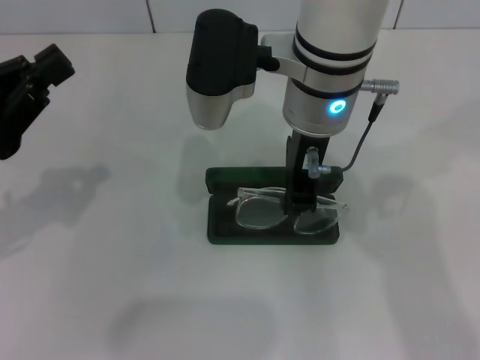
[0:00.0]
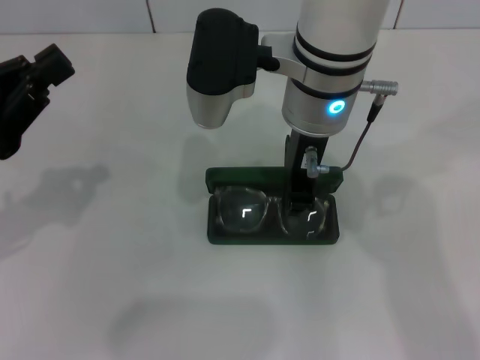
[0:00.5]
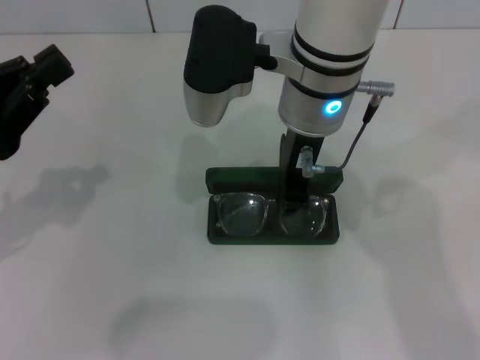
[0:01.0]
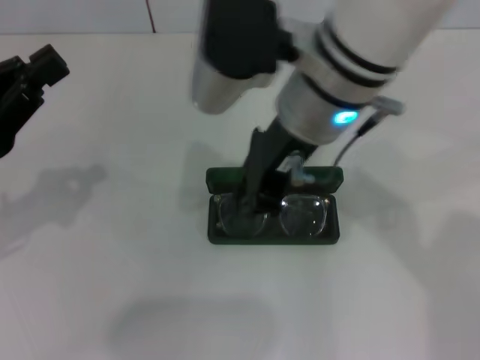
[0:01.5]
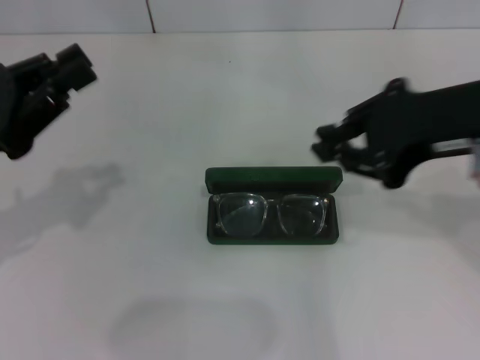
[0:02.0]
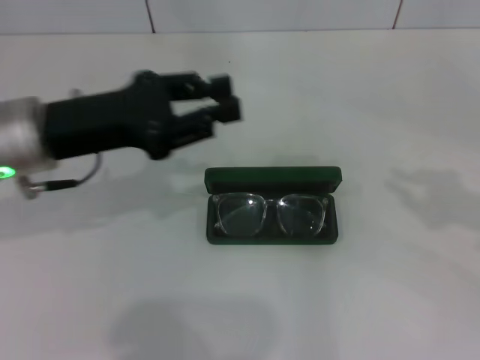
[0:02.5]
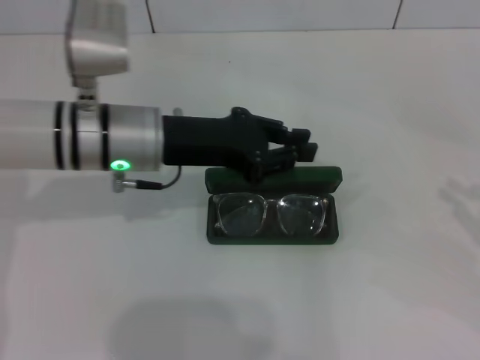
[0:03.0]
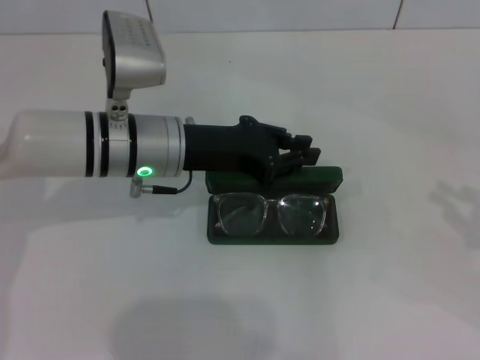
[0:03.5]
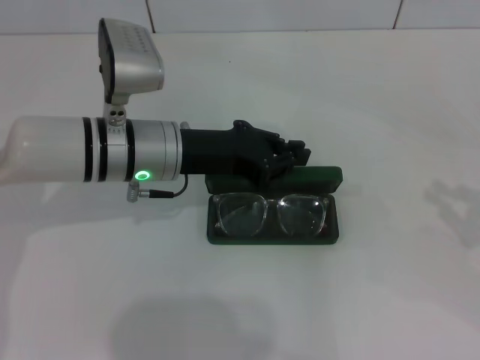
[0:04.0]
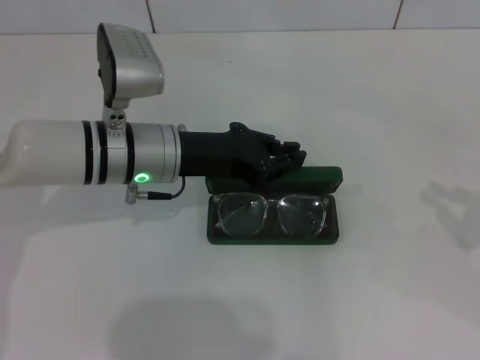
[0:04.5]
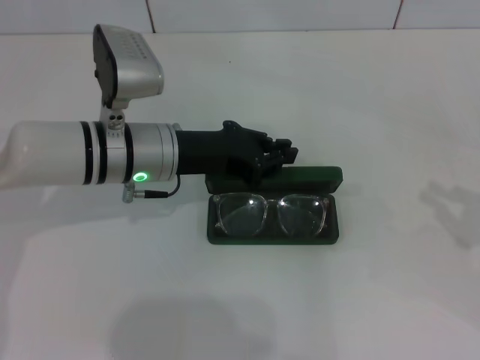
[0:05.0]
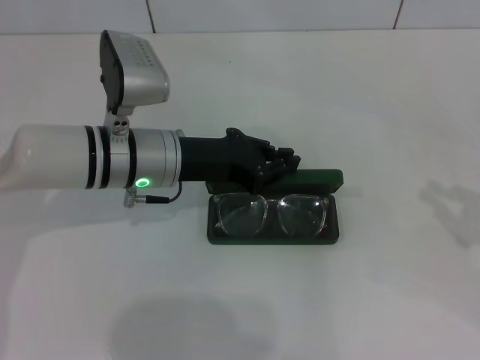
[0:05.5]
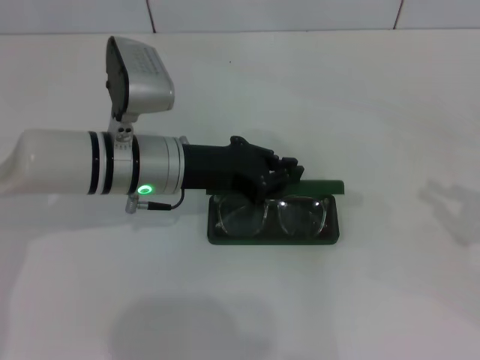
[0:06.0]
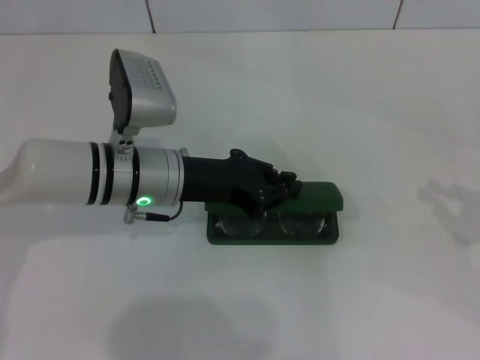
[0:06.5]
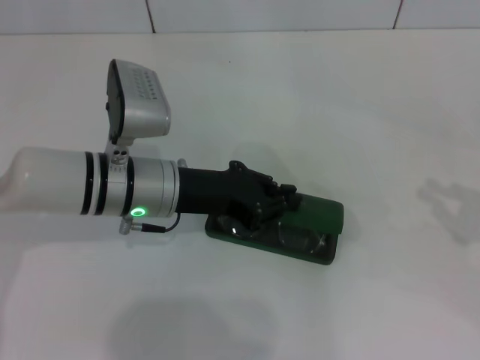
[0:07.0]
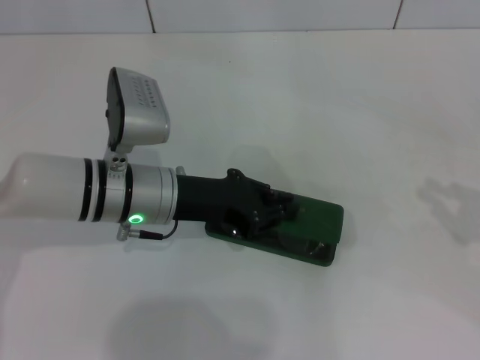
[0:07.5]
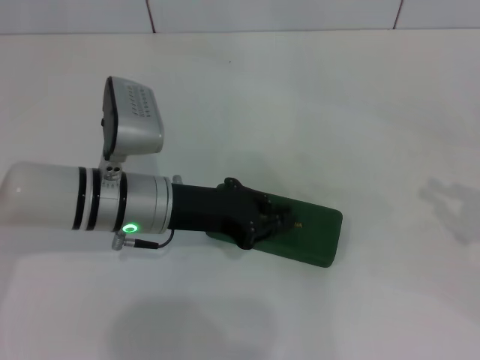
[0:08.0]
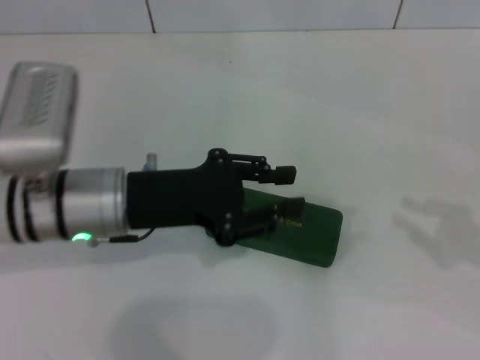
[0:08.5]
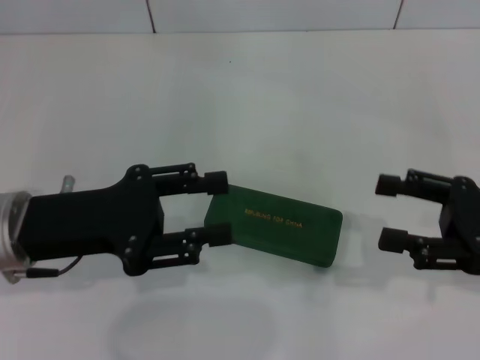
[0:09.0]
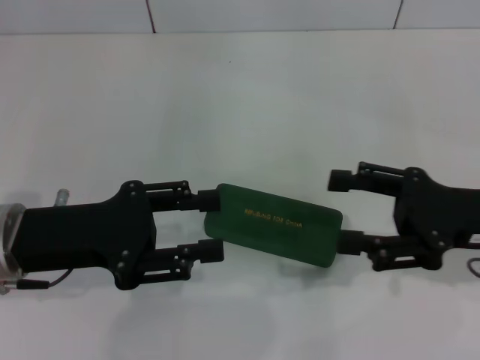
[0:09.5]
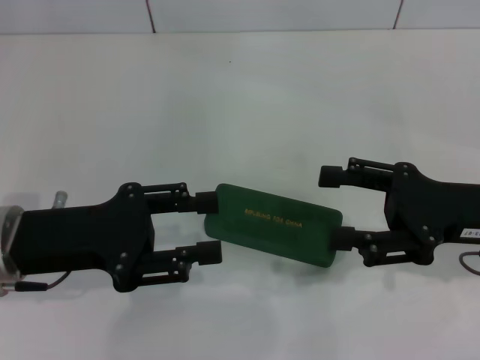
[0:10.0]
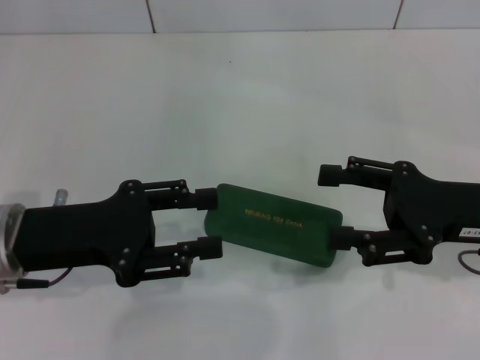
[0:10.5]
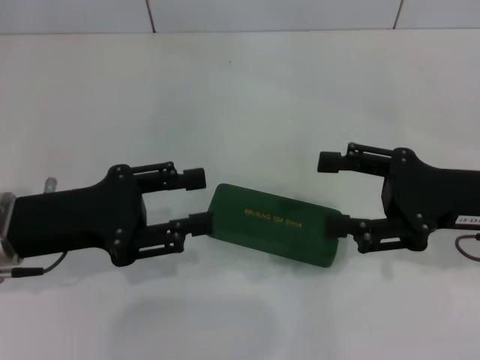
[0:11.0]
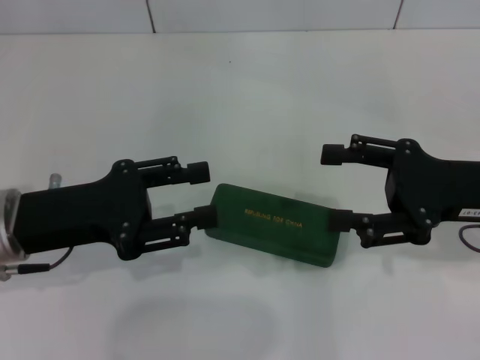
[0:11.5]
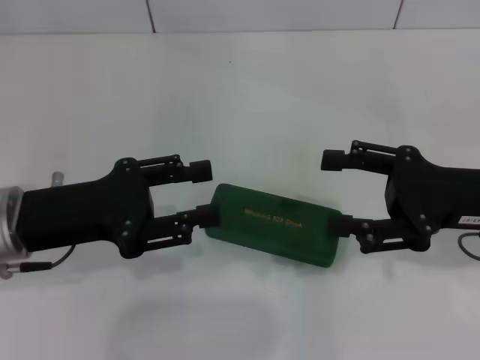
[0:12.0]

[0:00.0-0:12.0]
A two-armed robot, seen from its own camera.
Step, 0:02.0 to 0:08.0: Close the glasses case with your left hand.
0:00.0 to 0:02.0: The right gripper moves to the right and backward, some 20 cm.
0:02.0 to 0:04.0: The left gripper heads to the right and forward, covering about 20 cm; the right gripper heads to the right and downward, covering roughly 25 cm.
0:04.0 to 0:08.0: The grippers stay close to where they were, moving slightly.
0:08.0 to 0:10.0: The left gripper heads to the left and backward, covering some 10 cm, and opens its fingers. Meanwhile the right gripper heads to the left, covering about 15 cm, and opens its fingers.
0:10.0 to 0:12.0: The grippers move only a little.

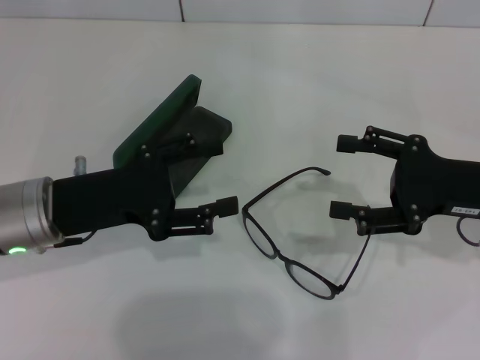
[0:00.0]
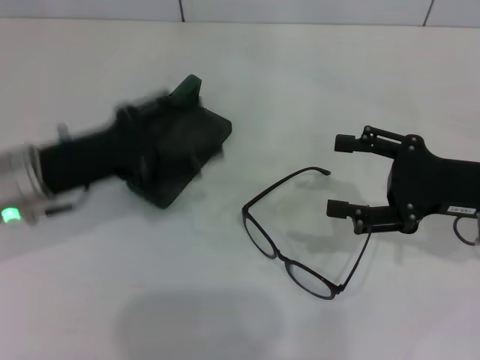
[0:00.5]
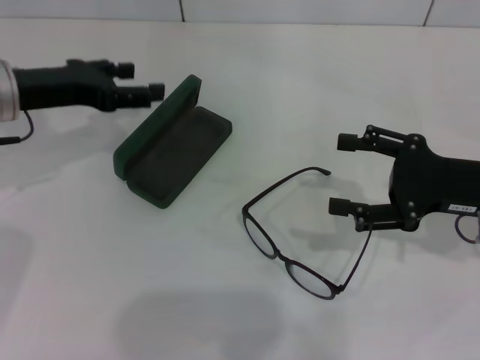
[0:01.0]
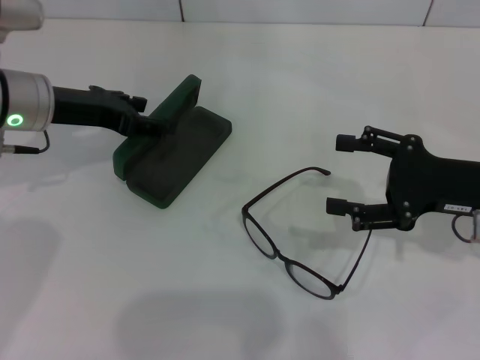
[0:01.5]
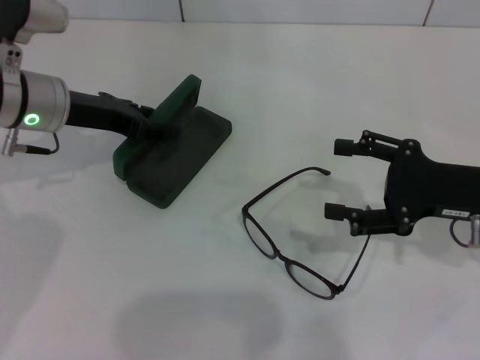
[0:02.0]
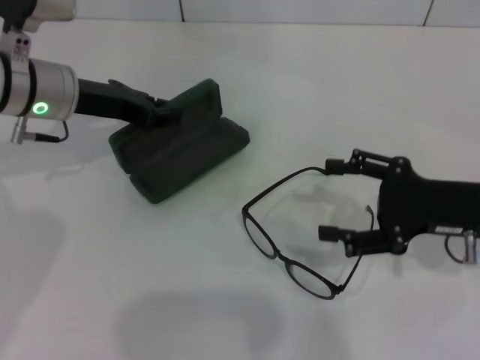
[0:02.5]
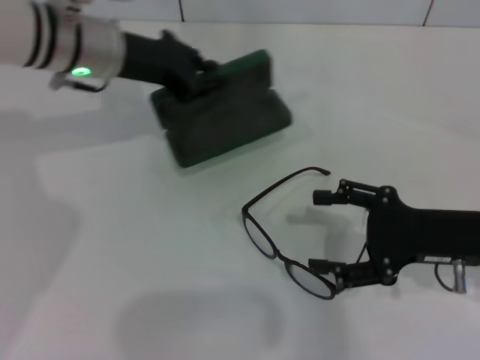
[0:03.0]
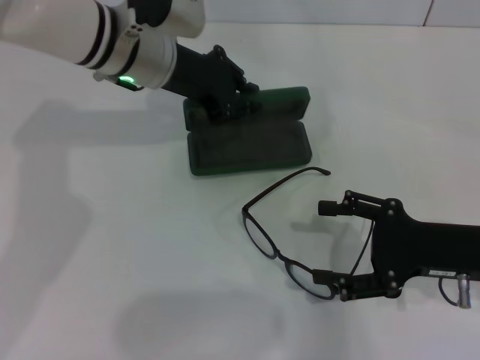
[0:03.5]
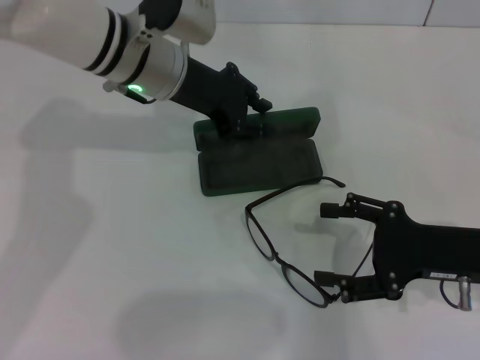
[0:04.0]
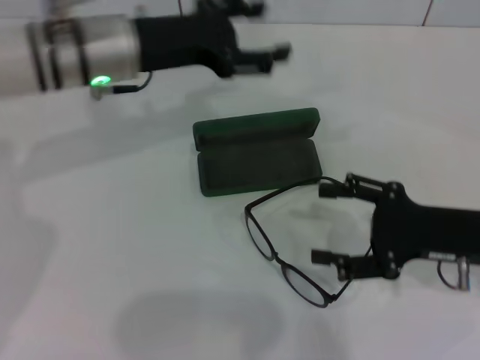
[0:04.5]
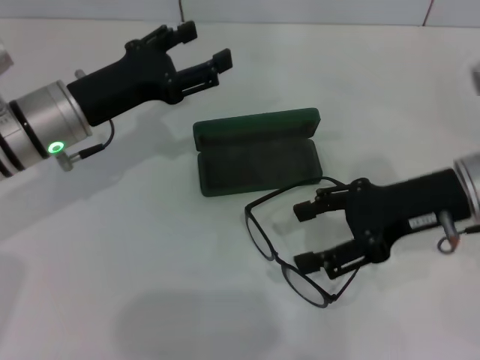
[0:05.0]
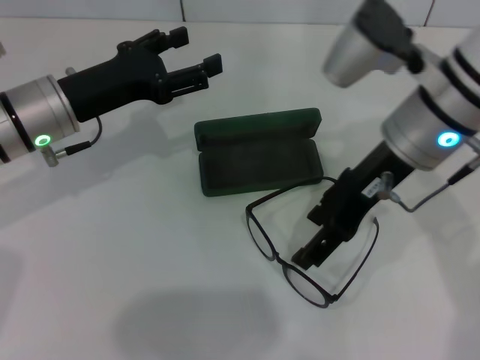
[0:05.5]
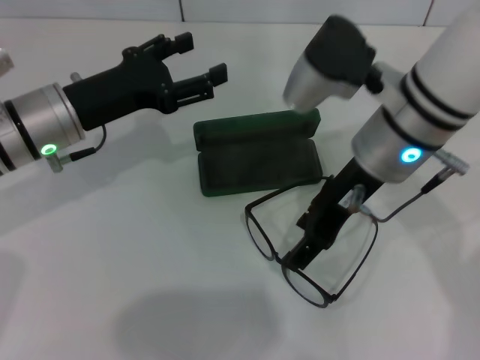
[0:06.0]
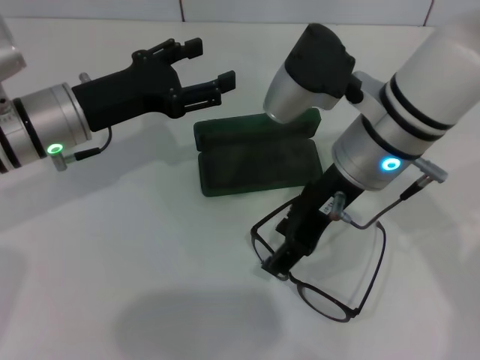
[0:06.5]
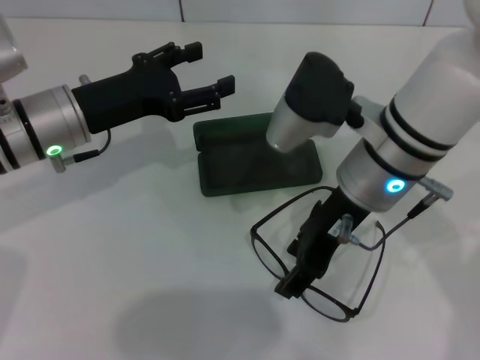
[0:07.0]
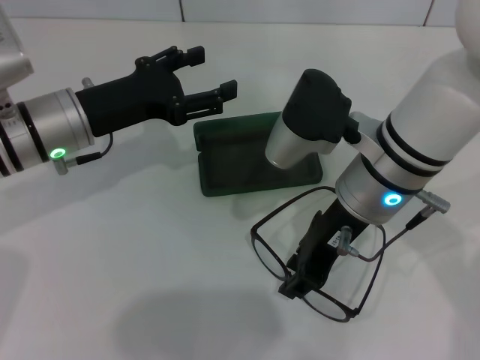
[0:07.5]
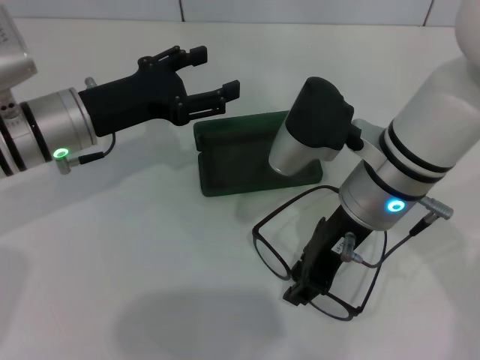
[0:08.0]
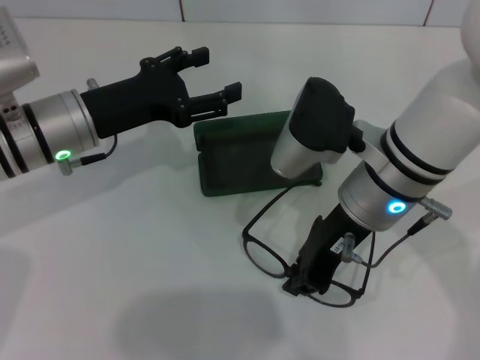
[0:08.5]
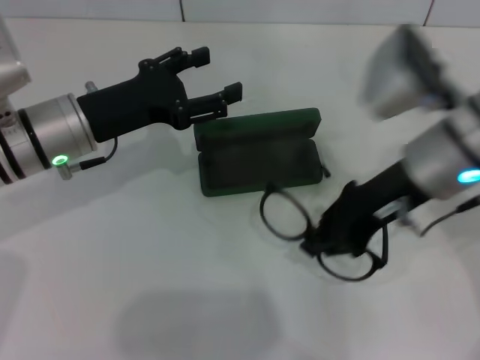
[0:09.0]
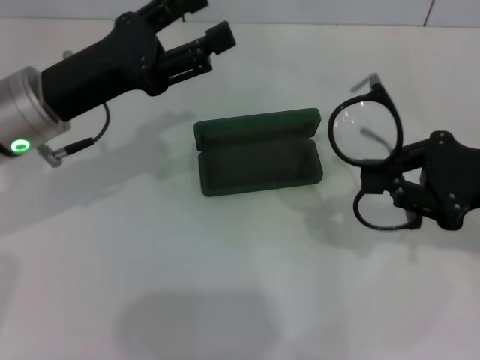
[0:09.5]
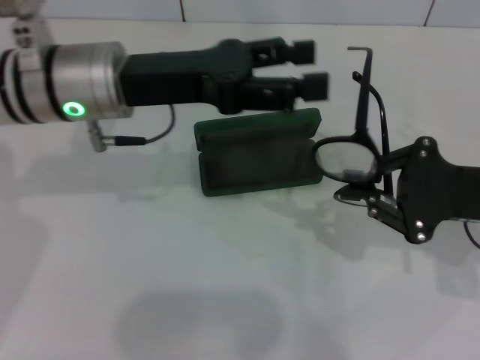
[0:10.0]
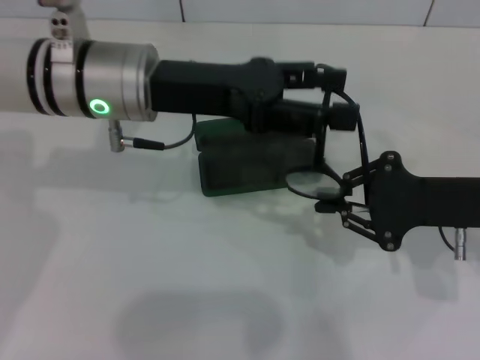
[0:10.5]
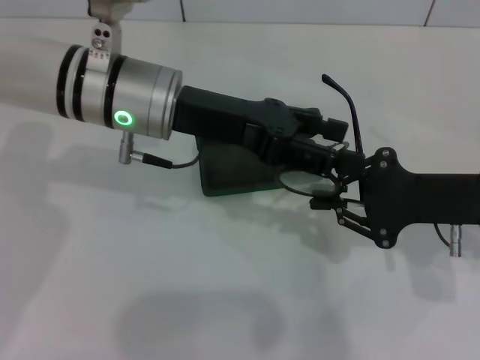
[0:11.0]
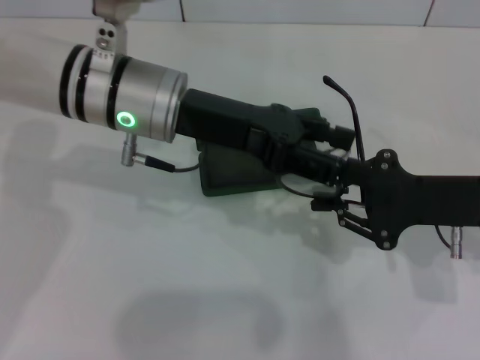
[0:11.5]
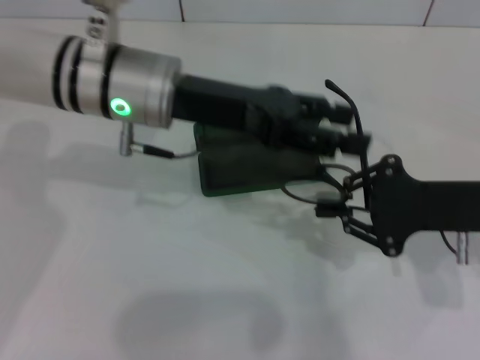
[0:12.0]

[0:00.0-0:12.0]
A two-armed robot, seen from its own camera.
Step, 0:00.0 to 0:02.0: Grab the glasses case with your left hand.
Step, 0:02.5 to 0:04.0: Place the glasses case in the center of the table with your left hand.
Step, 0:04.5 to 0:08.0: Grab the eyeglass frame with your right hand.
0:00.0 to 0:02.0: The left gripper goes about 10 cm forward.
0:02.0 to 0:04.0: The left gripper travels to the right by roughly 10 cm, and closes.
0:04.0 to 0:06.0: The right gripper heads to the left, upward and forward, covering roughly 20 cm; the left gripper shifts about 10 cm to the left and backward, and opens.
0:06.0 to 0:08.0: The right gripper closes.
0:08.0 to 0:10.0: The right gripper moves to the right, about 15 cm, while the left gripper shifts roughly 10 cm upward and to the right.

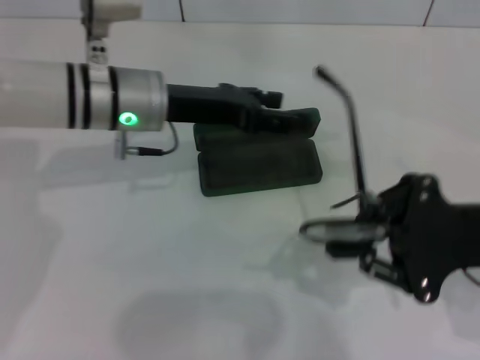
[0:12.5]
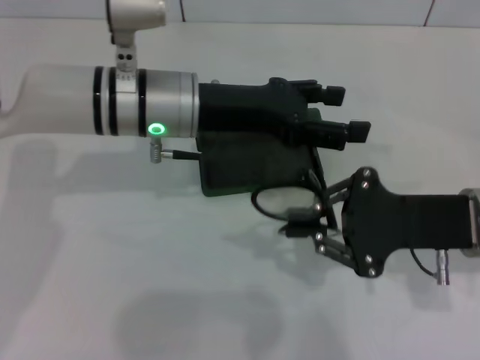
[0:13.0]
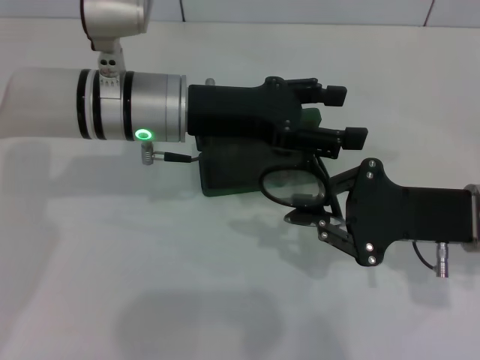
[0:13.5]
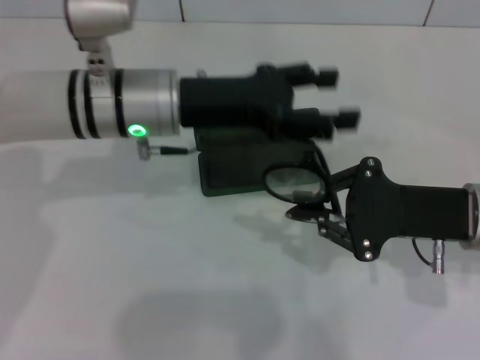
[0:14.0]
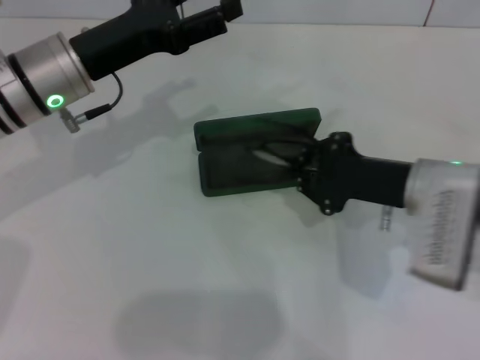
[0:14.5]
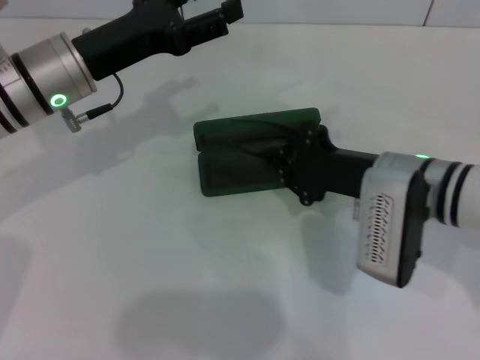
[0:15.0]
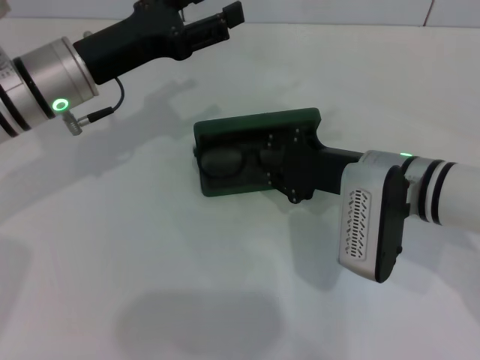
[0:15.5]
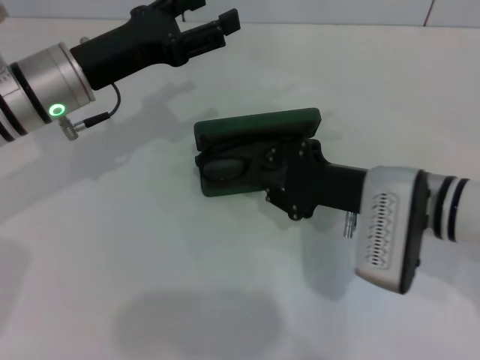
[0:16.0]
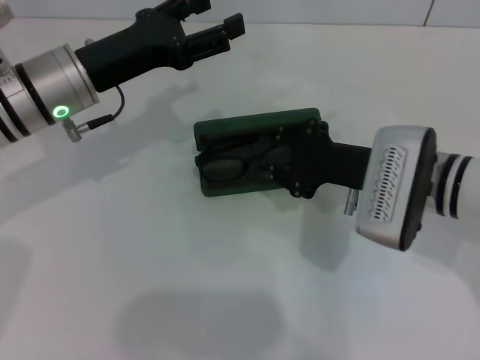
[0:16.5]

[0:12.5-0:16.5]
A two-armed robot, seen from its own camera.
0:12.5 to 0:14.5: The left gripper is displaced to the left by some 5 cm. Meanwhile the right gripper heads to the left and forward, covering approximately 10 cm.
0:14.5 to 0:16.5: There are only small adjustments of the grippers.
